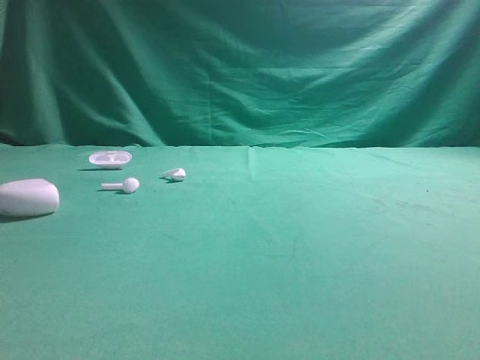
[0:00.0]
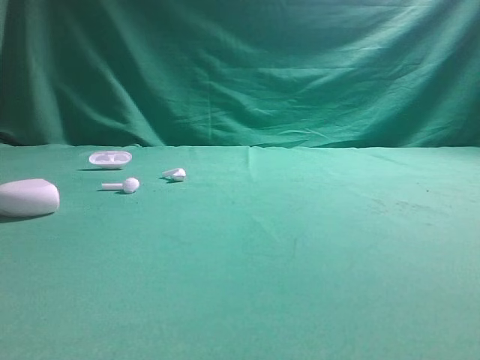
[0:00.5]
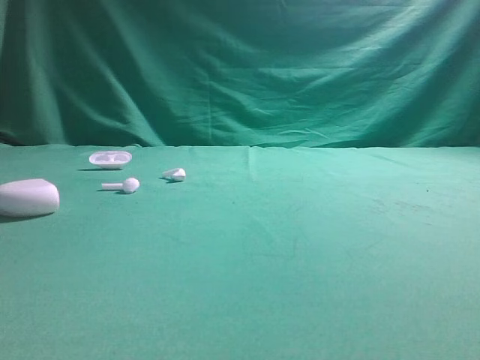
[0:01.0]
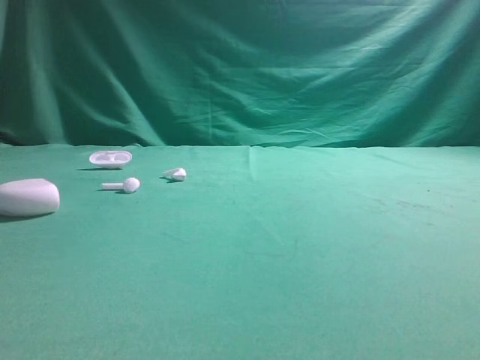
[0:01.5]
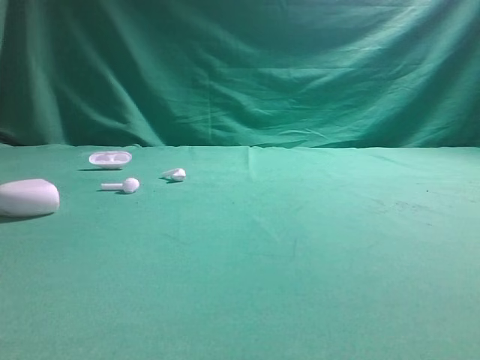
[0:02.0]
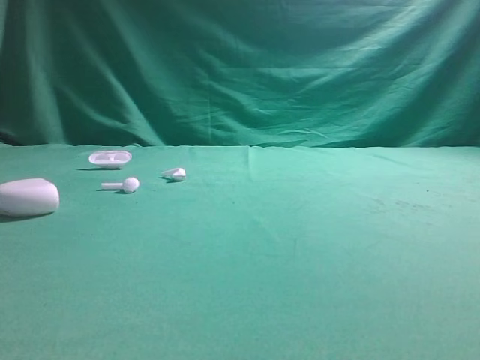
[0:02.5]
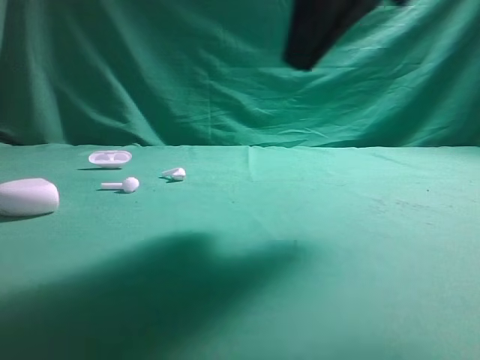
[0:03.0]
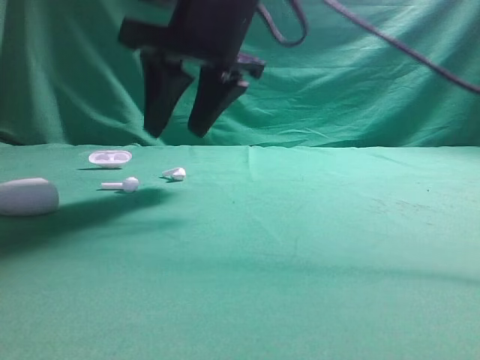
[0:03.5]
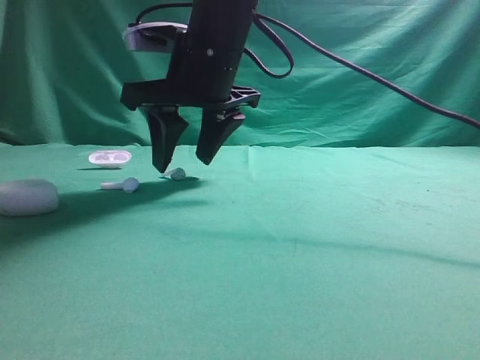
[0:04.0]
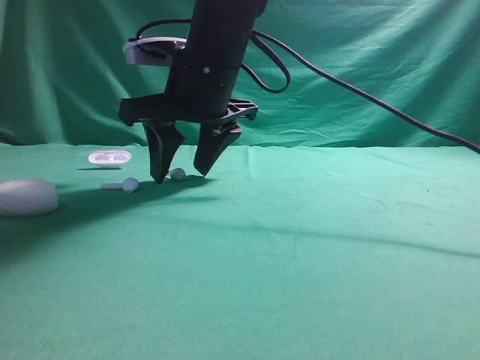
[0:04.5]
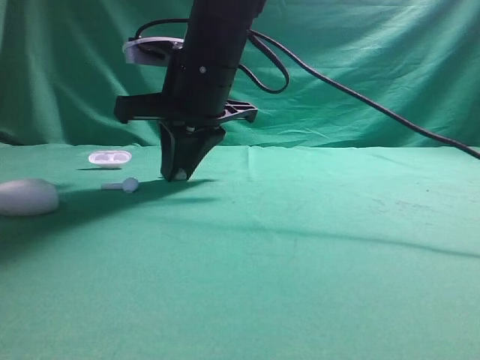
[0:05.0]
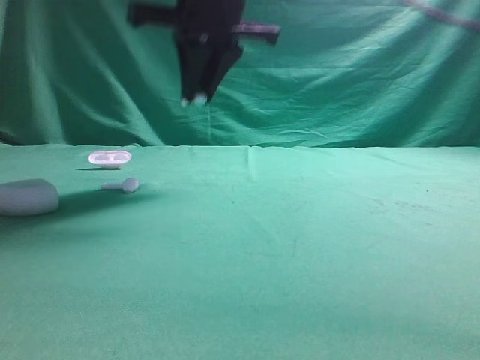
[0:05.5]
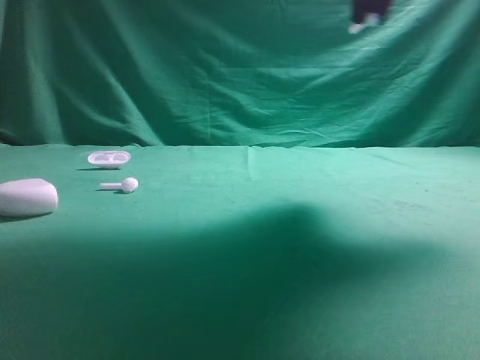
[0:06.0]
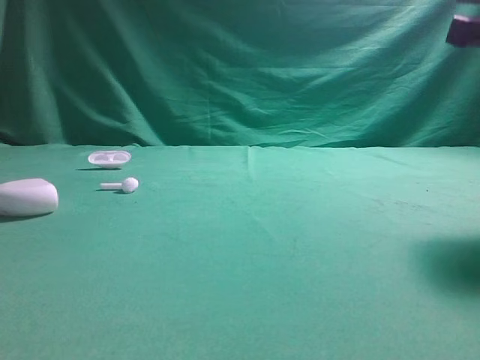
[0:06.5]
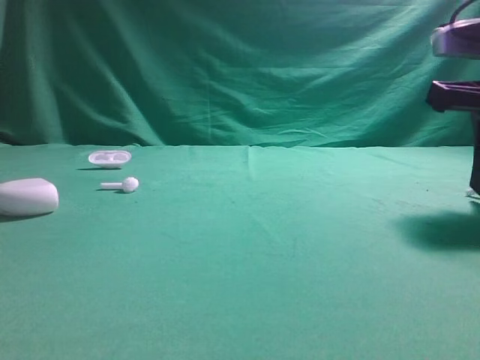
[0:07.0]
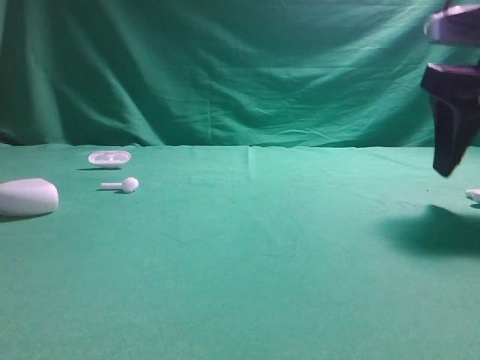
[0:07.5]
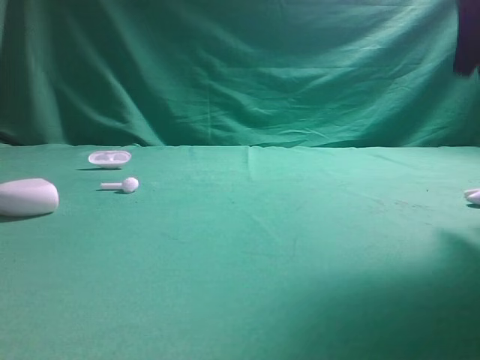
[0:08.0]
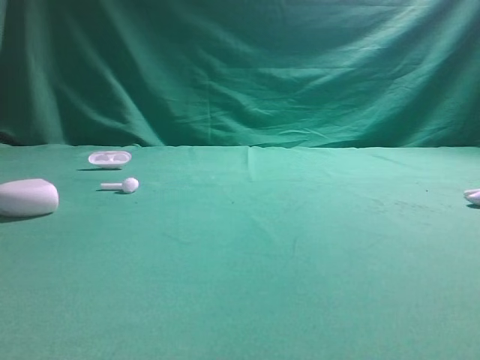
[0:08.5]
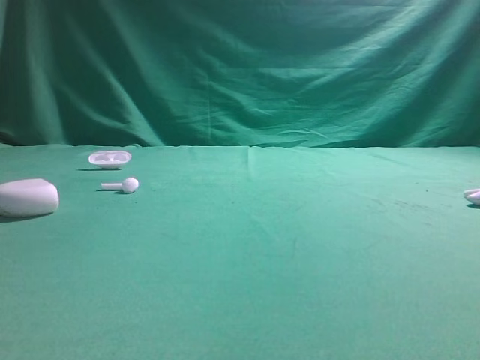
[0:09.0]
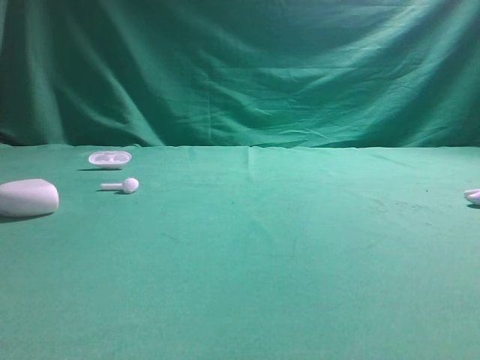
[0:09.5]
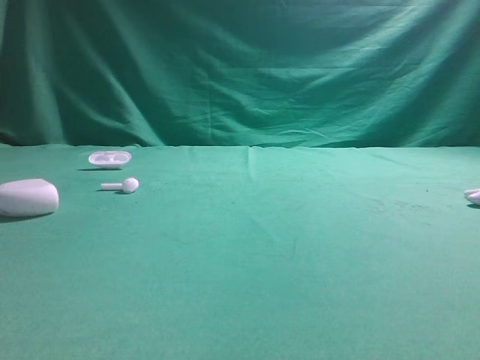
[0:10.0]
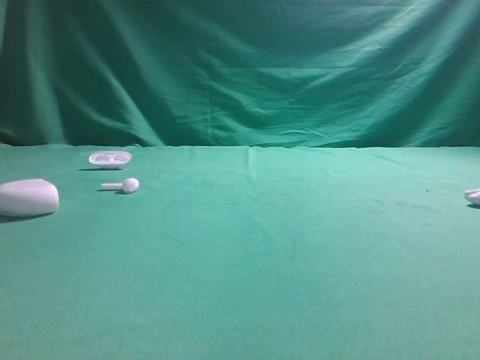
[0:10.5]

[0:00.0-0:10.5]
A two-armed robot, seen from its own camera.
Step, 0:00.0 to 0:05.0: Grasp the Bluetooth earbud.
Step, 0:05.5 to 0:07.5: Place bluetooth earbud on the right side of the table.
